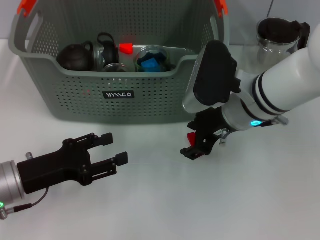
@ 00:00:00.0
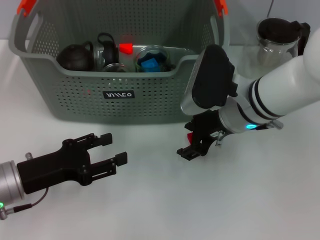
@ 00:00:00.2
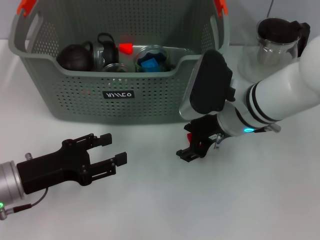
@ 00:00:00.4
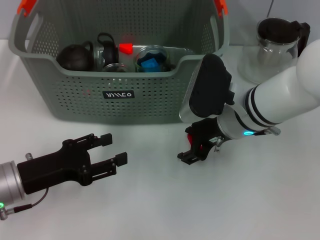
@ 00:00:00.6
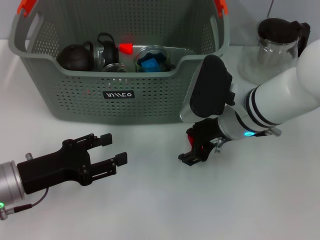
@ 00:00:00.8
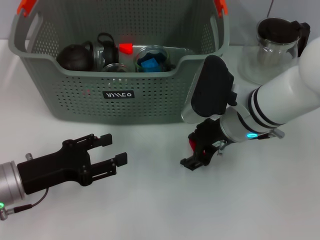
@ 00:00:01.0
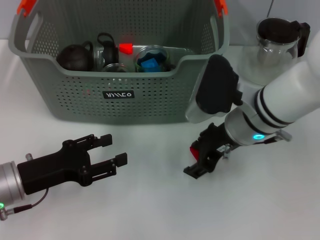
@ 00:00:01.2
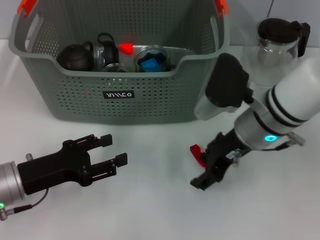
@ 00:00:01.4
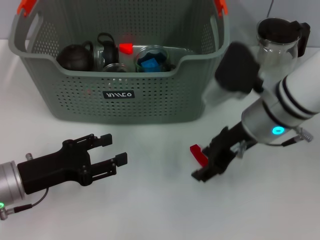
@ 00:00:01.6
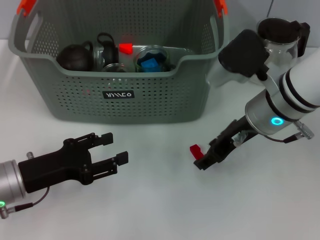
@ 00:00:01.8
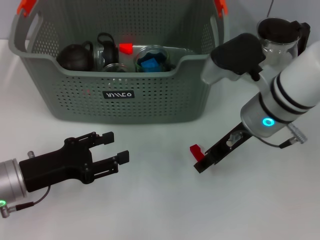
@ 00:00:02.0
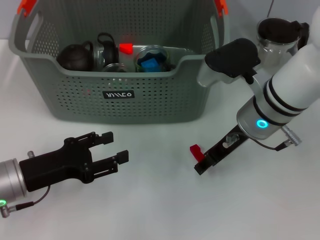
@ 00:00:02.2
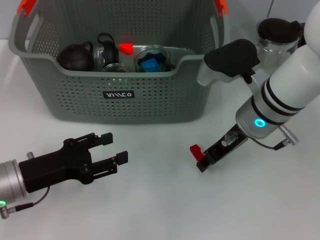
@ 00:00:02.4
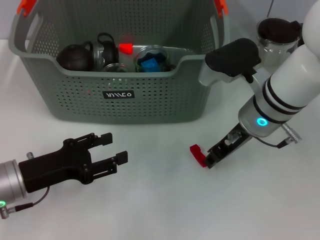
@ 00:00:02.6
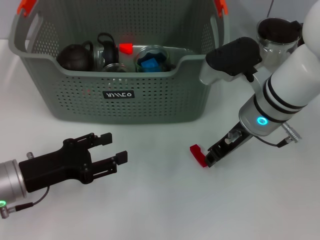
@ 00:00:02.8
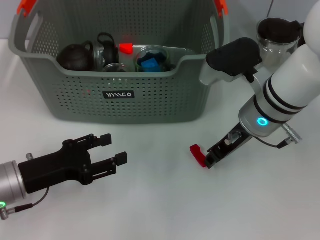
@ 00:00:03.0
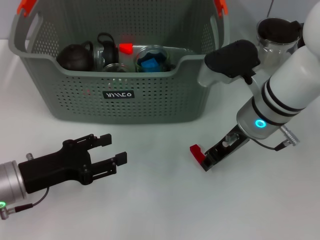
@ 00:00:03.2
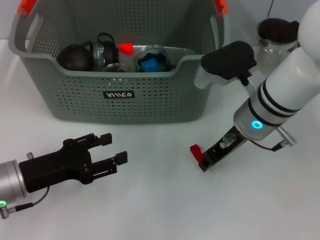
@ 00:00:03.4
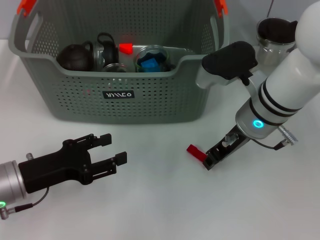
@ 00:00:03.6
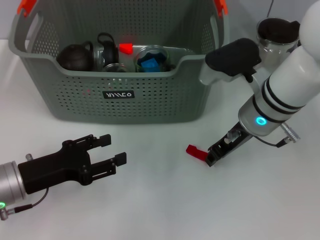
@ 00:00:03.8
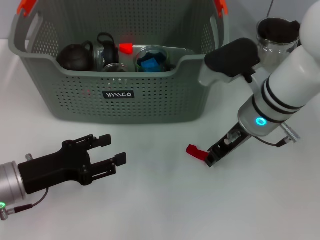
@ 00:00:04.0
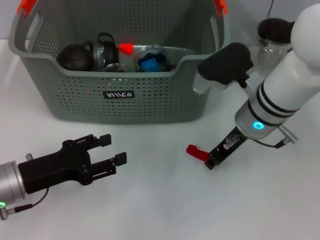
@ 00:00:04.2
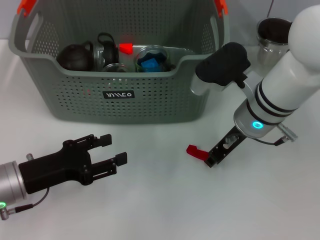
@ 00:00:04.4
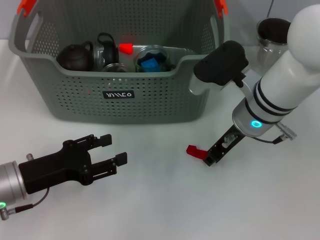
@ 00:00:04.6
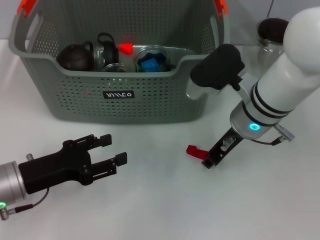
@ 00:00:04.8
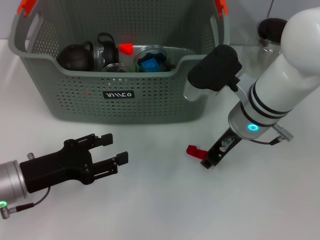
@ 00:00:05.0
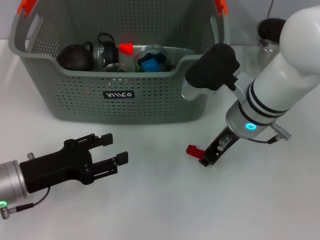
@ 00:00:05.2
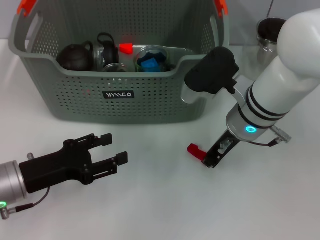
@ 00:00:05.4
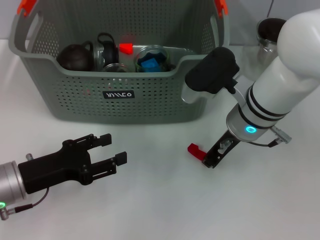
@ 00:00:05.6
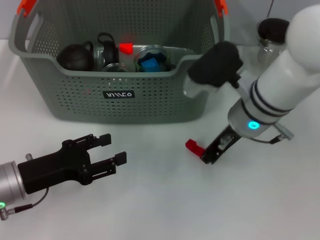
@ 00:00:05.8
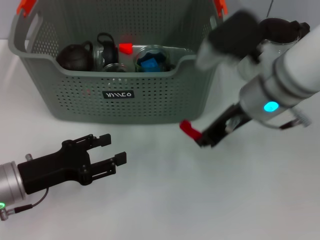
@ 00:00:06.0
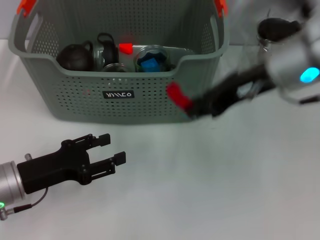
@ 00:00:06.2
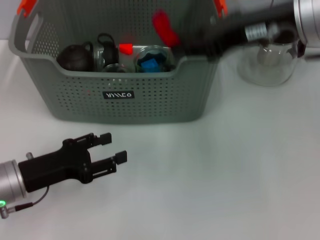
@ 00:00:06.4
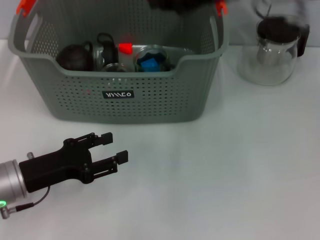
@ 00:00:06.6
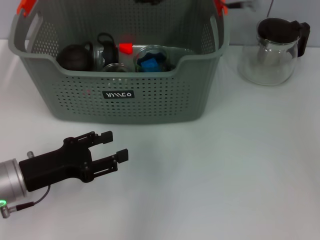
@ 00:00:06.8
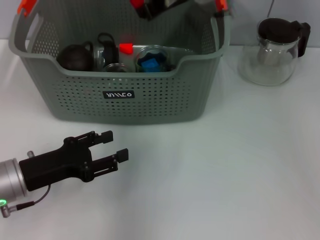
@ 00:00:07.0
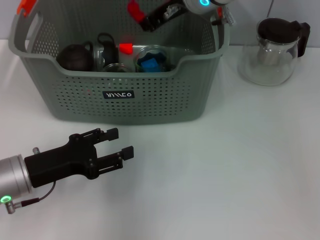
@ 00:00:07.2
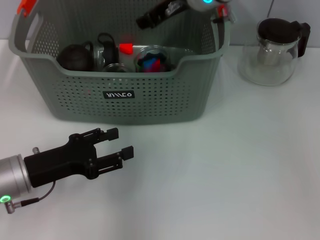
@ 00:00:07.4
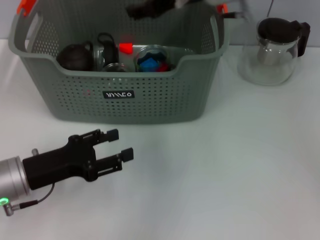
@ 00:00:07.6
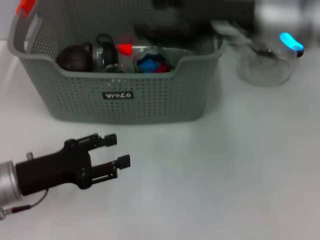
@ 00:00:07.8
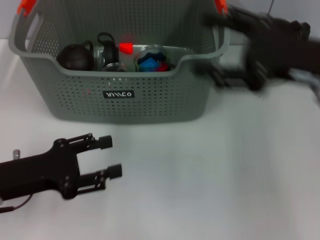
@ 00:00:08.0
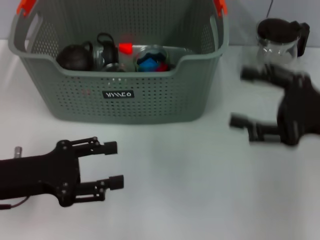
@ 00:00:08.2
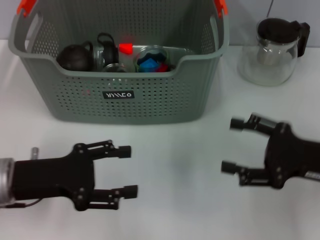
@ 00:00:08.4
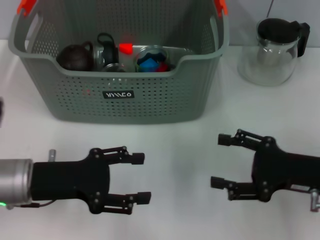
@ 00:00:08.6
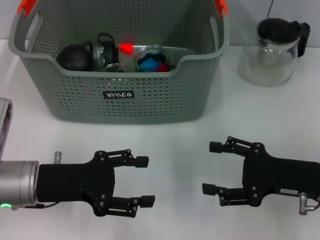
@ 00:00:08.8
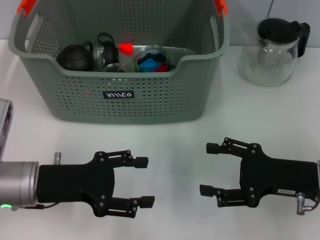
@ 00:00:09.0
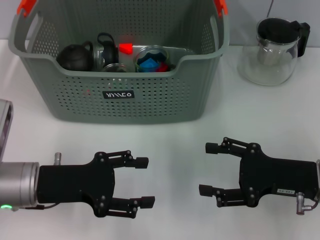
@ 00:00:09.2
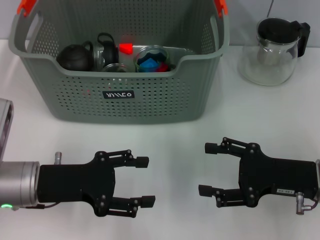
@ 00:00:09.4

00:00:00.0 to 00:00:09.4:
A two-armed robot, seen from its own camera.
Task of the whole recording: pick up the teacup on the table and place it into the storage bin, pick up the block on the table and place it into the storage bin.
Step, 00:00:00.0 to 00:00:05.4: Grasp the red block with right gripper.
Step, 00:00:05.6 to 00:00:07.4: Place the red block in the storage box with right gripper.
00:00:00.0 to 00:00:01.6: The grippers make only small movements.
00:00:01.6 to 00:00:03.2: The right gripper closes.
00:00:03.2 to 00:00:04.8: The grippers move only a little.
00:00:04.8 to 00:00:06.2: The right gripper is displaced upward by approximately 10 cm.
00:00:06.2 to 00:00:07.8: The right gripper goes forward and returns, some 15 cm each way, and opens up.
00:00:07.8 to 00:00:09.4: The right gripper shifts about 20 cm downward, backward and to the right.
